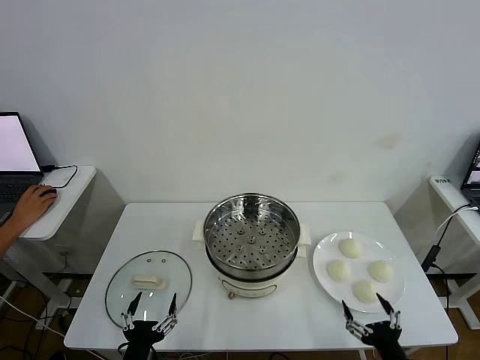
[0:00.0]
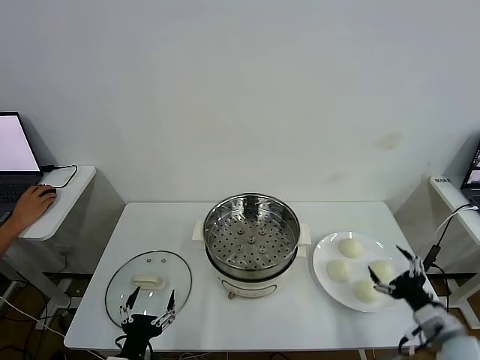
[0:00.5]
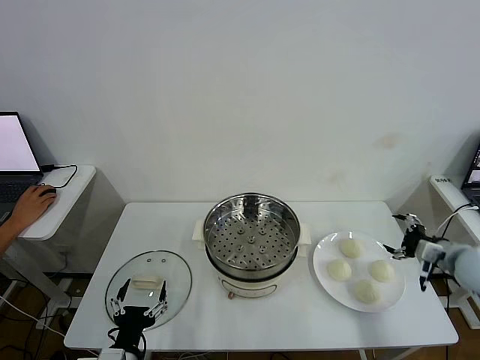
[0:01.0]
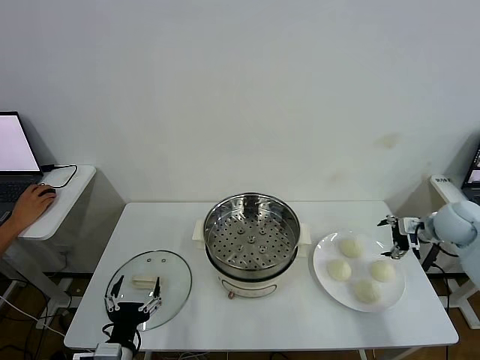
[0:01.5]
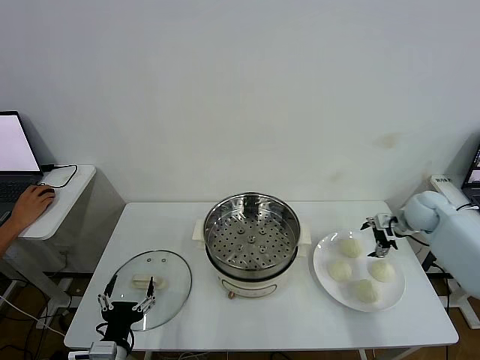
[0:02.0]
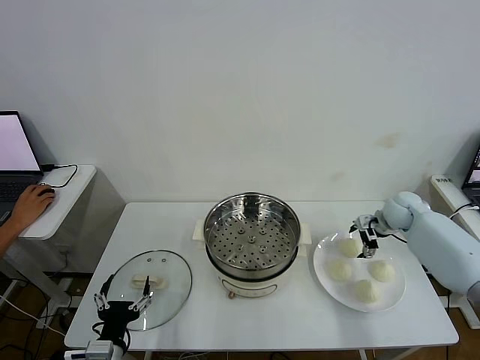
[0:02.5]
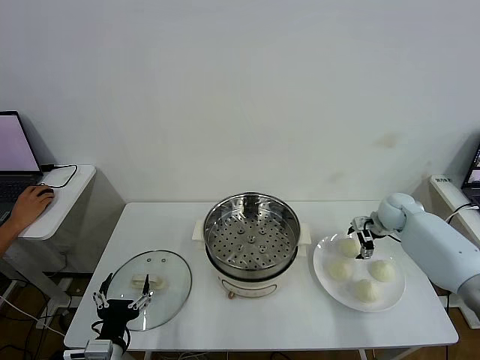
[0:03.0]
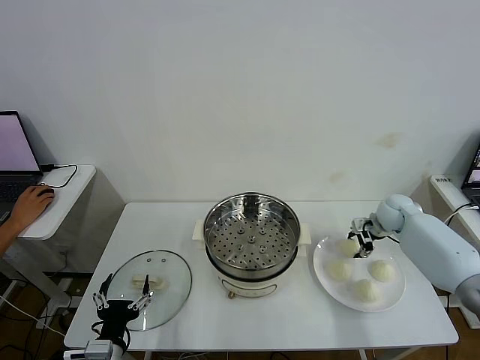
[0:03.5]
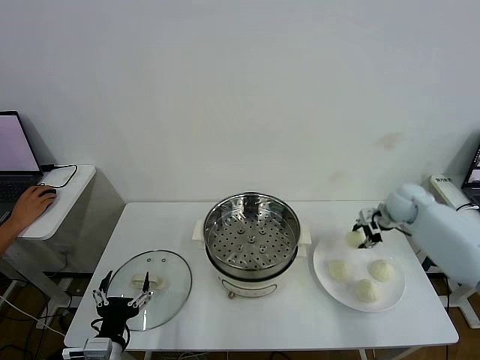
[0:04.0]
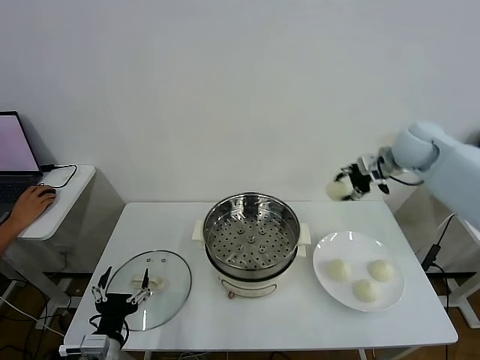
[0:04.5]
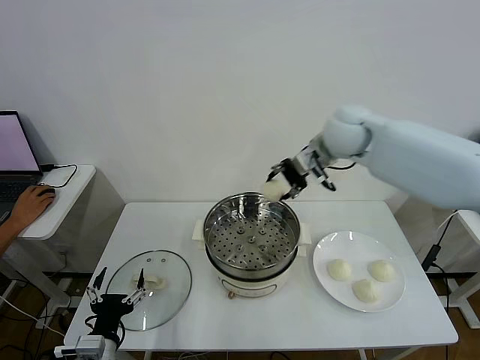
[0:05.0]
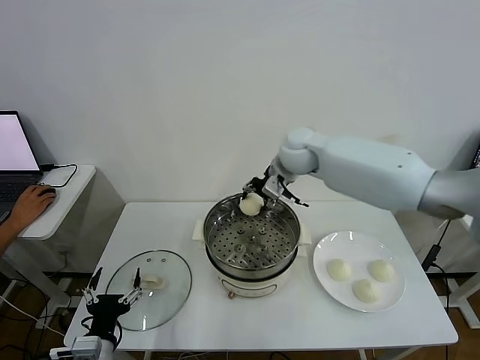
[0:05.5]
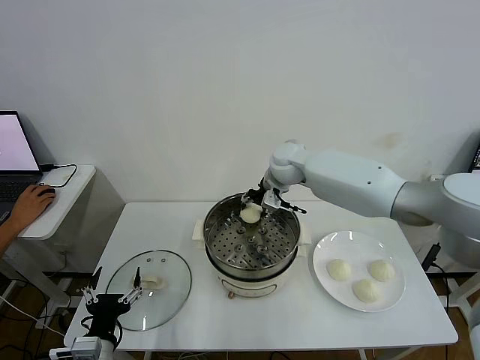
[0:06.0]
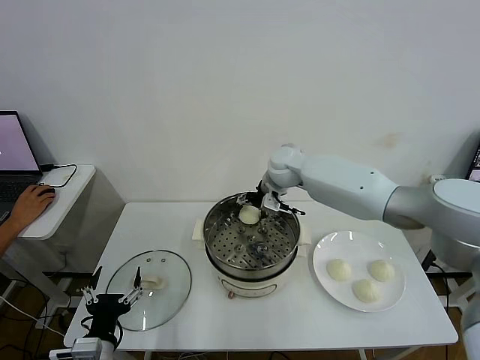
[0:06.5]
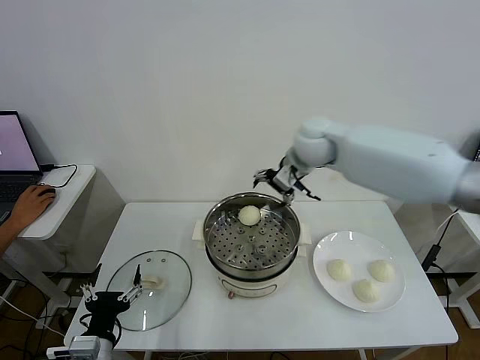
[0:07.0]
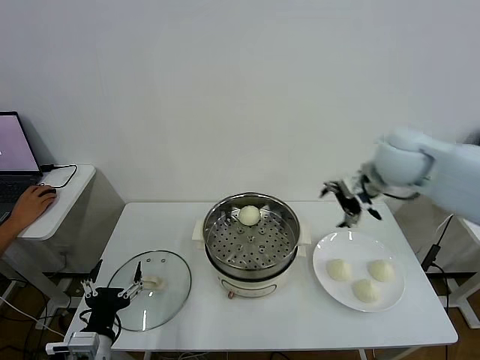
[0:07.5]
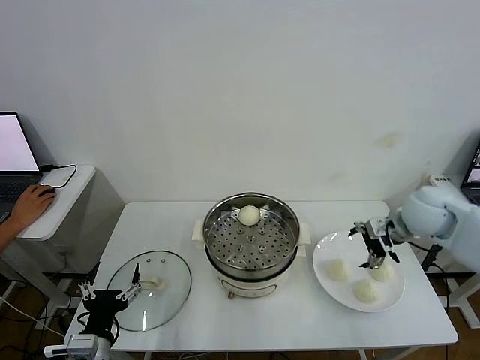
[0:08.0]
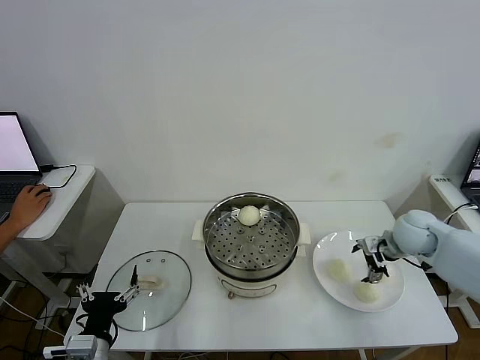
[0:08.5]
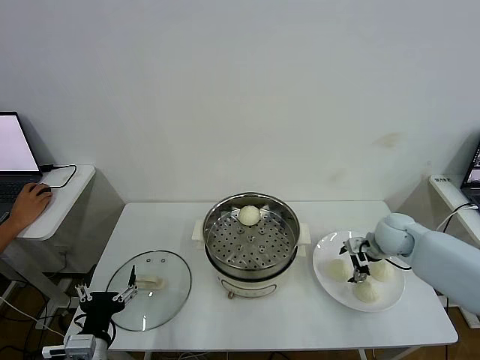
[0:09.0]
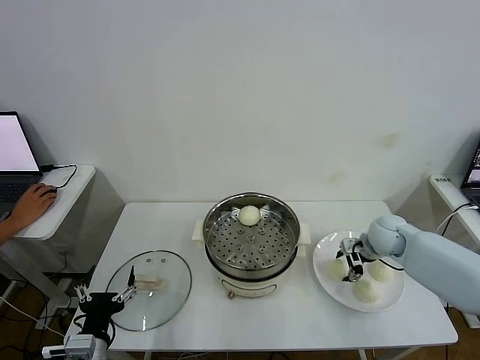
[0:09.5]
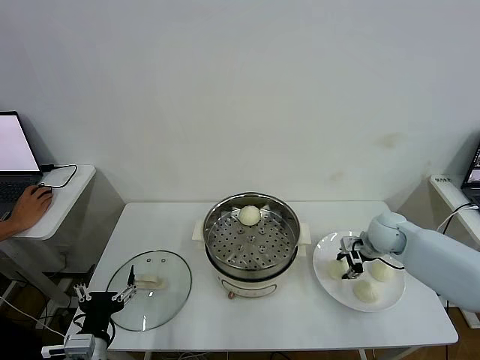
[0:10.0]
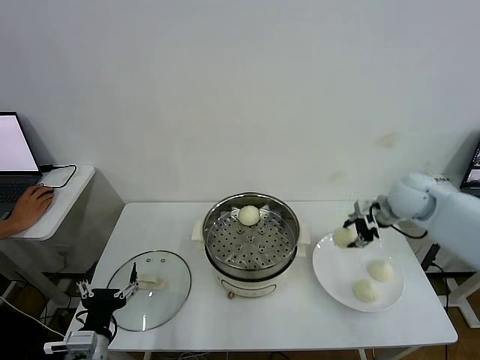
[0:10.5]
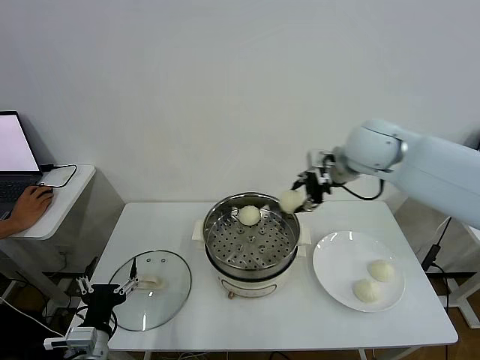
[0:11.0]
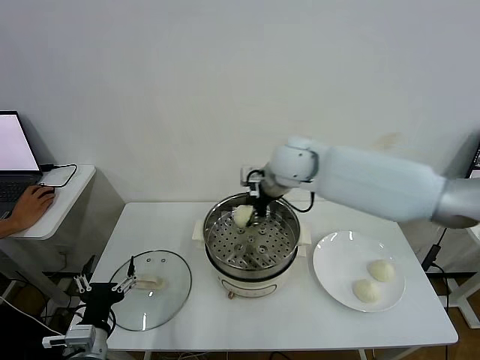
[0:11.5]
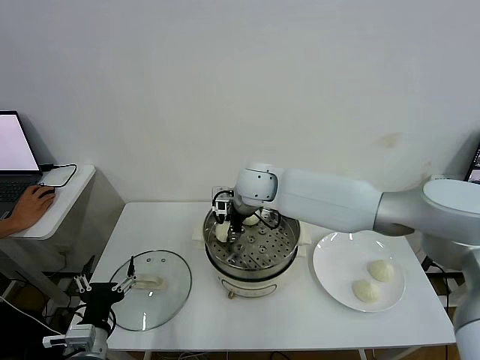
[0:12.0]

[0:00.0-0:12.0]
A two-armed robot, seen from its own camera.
Step, 0.0 to 3.5 s: Grasp the baozi in the plate with right gripper.
Step, 4.0 to 6.5 s: Place the baozi on the steamer with right gripper.
Step, 7.0 to 9.5 s: Grasp the baozi in the plate with right gripper.
2.0 to 4.0 s: The right gripper closes its fingers.
4.0 to 6.0 s: The right gripper heads to the left, covering approximately 30 cm.
6.0 to 8.0 s: The right gripper travels to the right and backward by some 30 cm, and opens up.
8.0 to 10.0 s: The right gripper shifts some 10 cm downward, and closes.
10.0 to 12.0 s: The right gripper goes about 35 cm to the left.

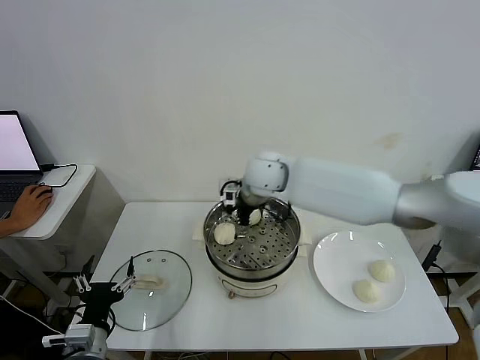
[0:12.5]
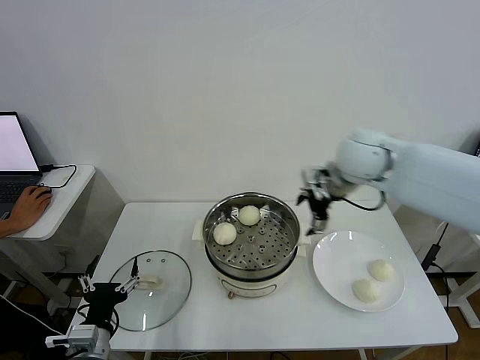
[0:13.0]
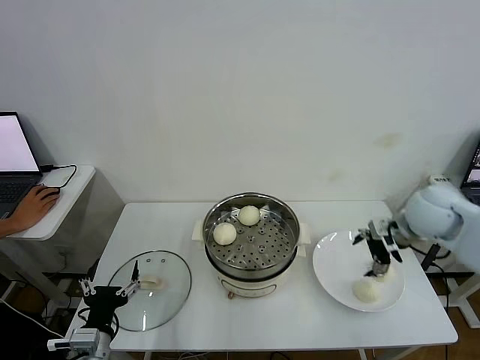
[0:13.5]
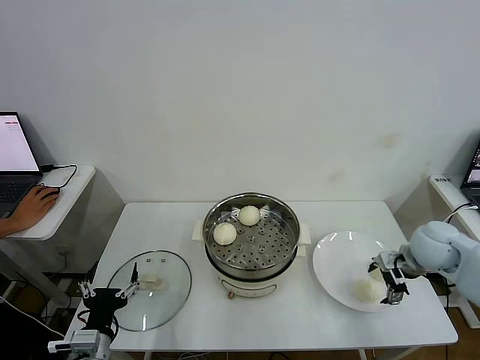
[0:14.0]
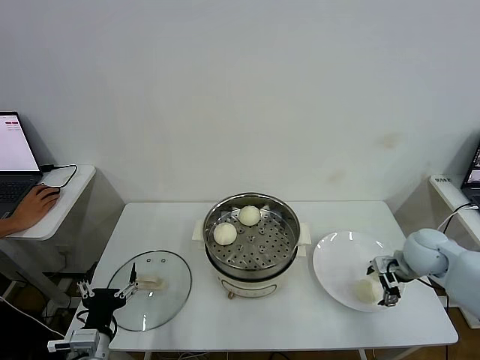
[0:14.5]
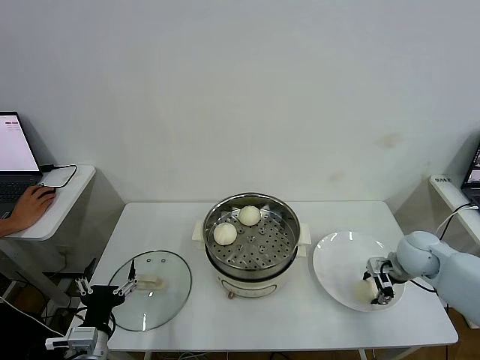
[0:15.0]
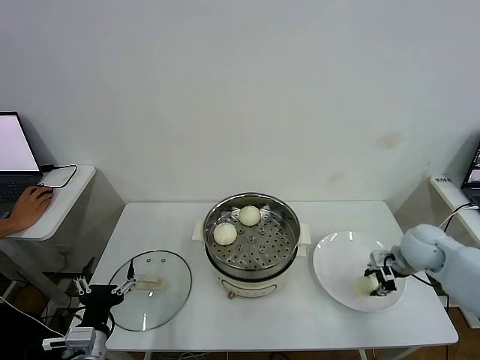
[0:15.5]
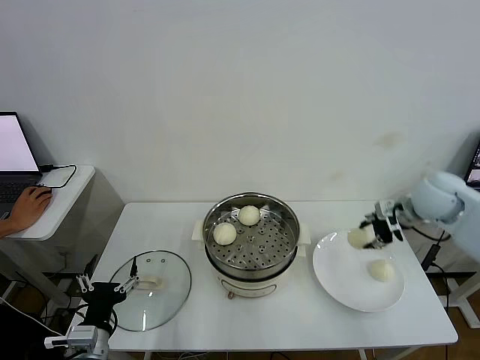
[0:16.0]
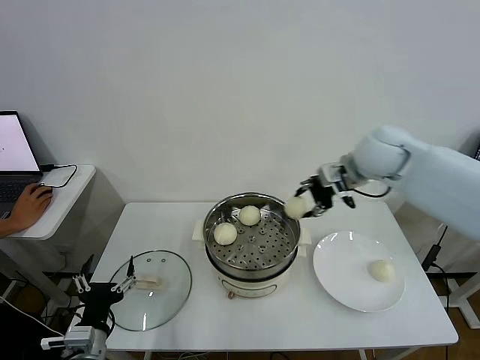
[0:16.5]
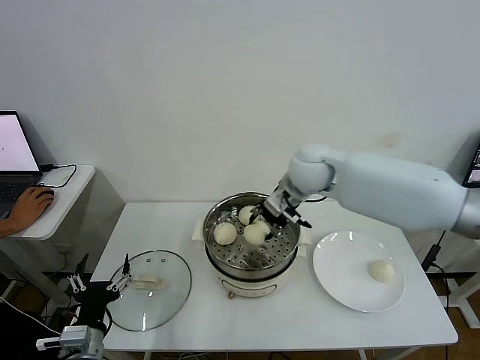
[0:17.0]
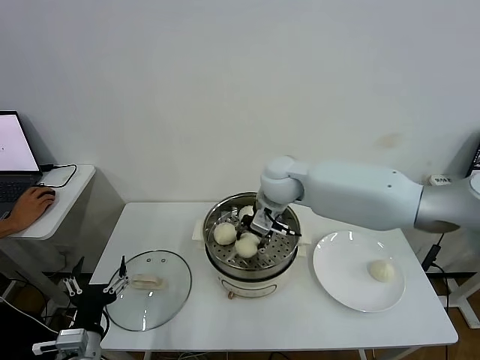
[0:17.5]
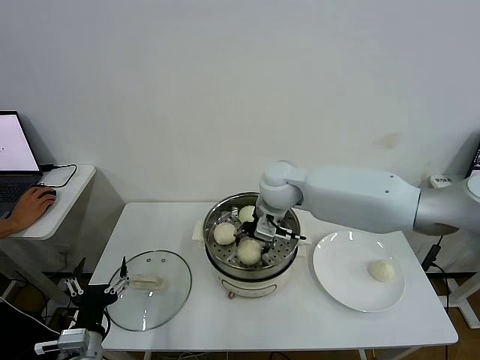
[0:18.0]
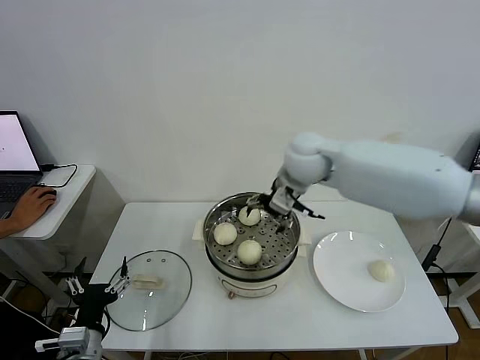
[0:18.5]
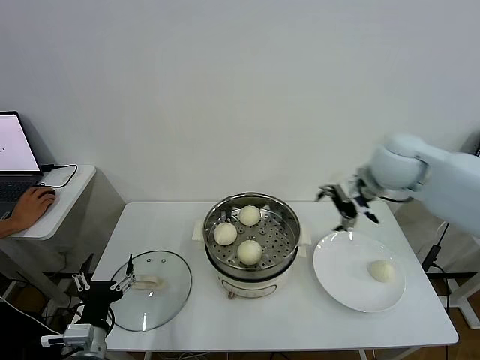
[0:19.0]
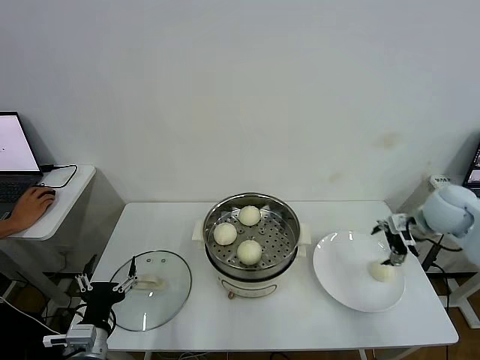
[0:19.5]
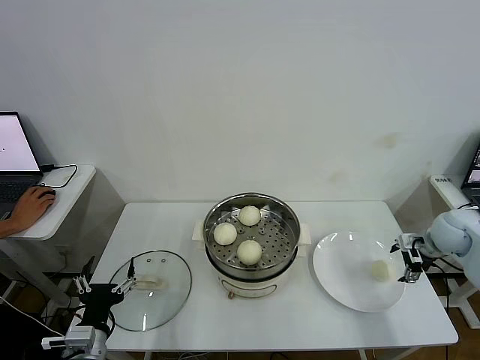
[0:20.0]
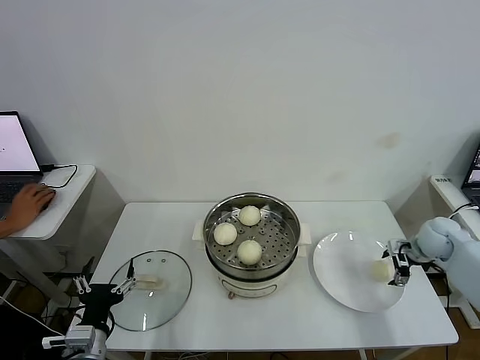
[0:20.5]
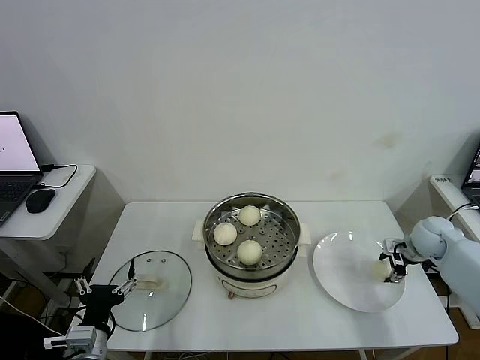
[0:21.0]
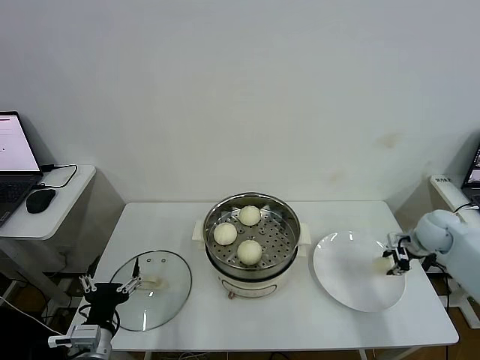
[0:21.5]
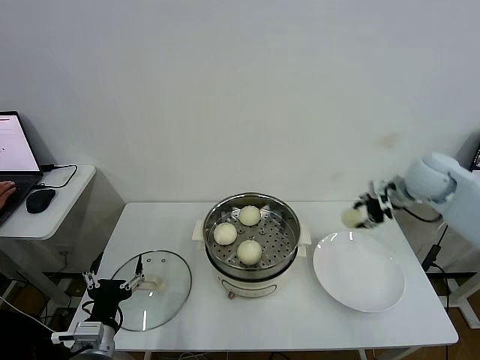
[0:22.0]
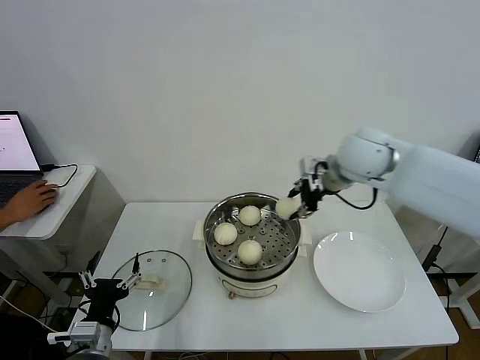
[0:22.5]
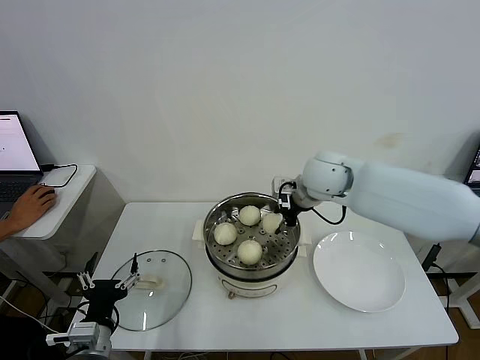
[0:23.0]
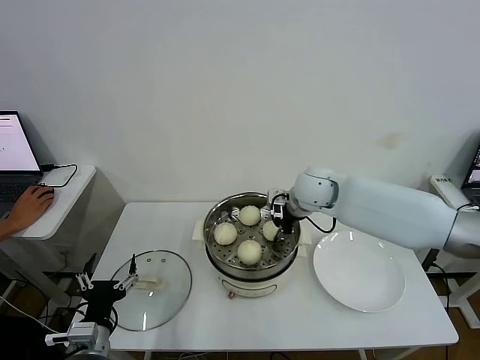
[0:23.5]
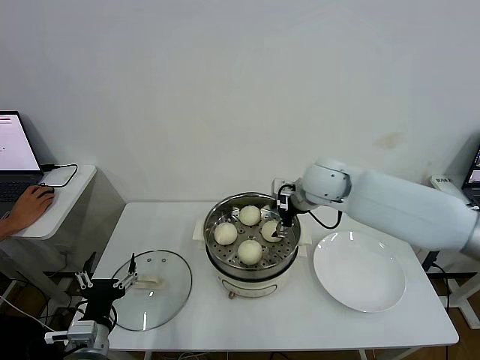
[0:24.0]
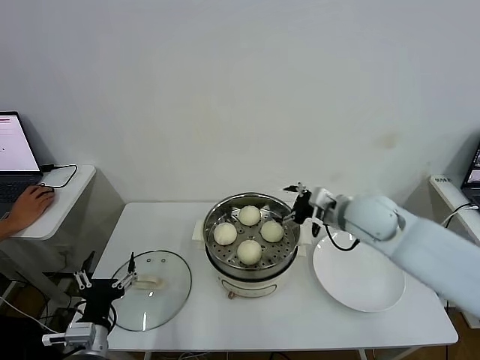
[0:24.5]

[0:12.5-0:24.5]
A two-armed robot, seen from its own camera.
Step, 13.0 to 15.0 s: Grasp the baozi in the plate with right gripper.
Step, 15.5 to 18.0 s: Place the baozi on the steamer with right gripper.
Step, 18.5 to 21.0 s: Grasp the baozi in the plate with right gripper.
Step, 21.5 to 23.5 s: Place the baozi on the steamer with right gripper.
12.5 to 14.5 s: The right gripper moves to the right and downward, approximately 40 cm.
14.5 to 16.5 s: The right gripper is displaced upward, to the left and forward by roughly 30 cm, and closes its fingers.
16.5 to 18.5 s: The right gripper is displaced to the left by approximately 10 cm, and opens up.
18.5 to 20.5 s: The right gripper travels to the right and downward by approximately 40 cm.
20.5 to 22.5 s: The right gripper heads to the left and upward, covering some 35 cm, and closes.
22.5 to 24.5 s: The right gripper is displaced downward and backward by some 10 cm, and opens.

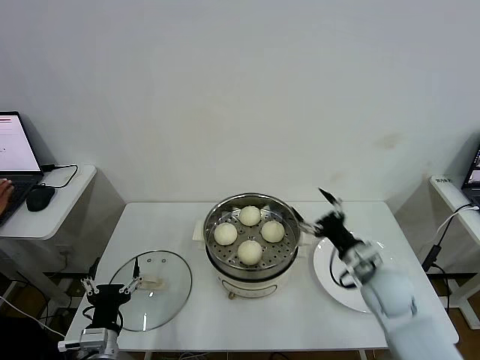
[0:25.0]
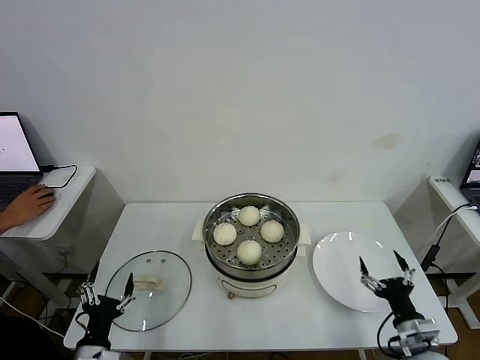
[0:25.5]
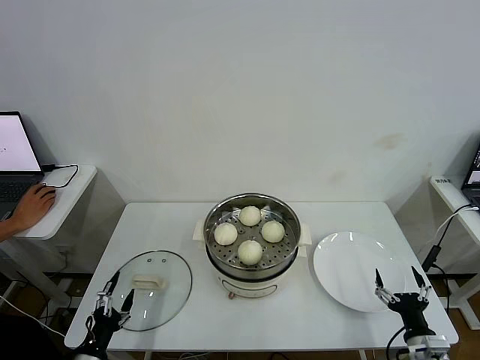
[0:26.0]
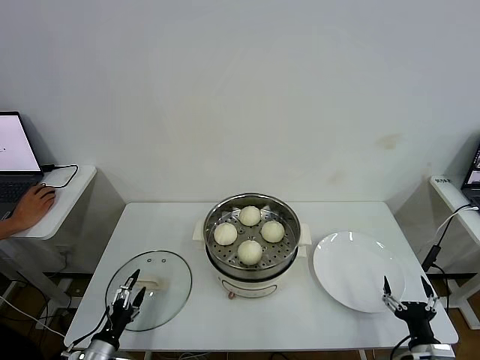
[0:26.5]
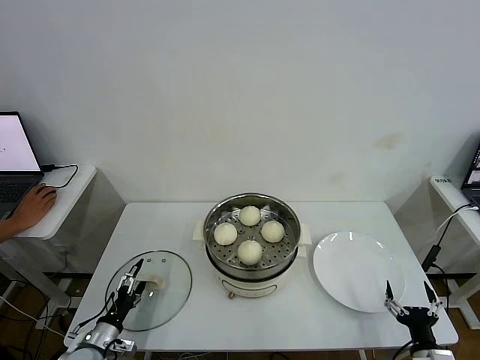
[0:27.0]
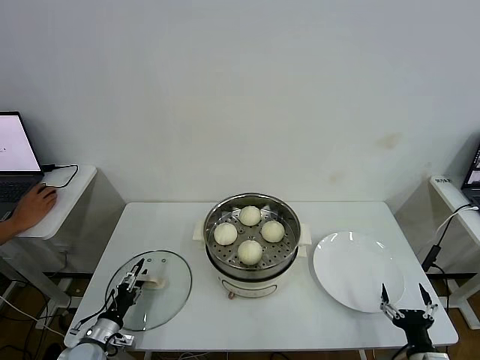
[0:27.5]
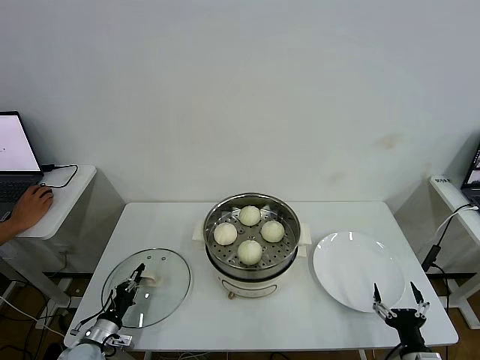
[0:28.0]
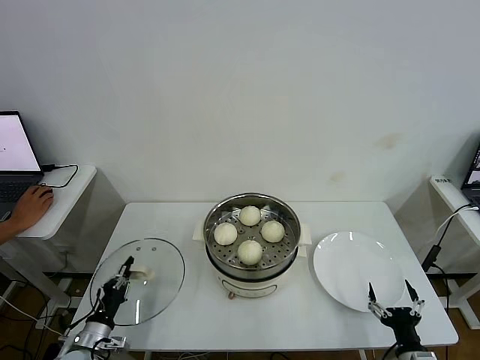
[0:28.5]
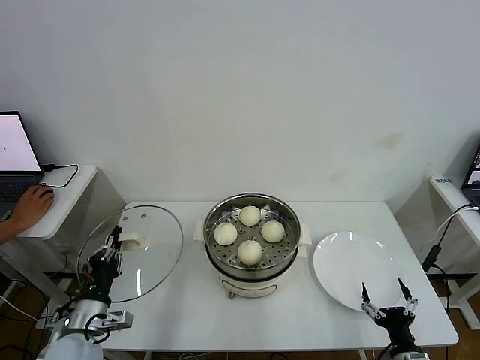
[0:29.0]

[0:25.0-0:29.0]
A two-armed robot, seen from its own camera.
Step, 25.0 to 28.0 s: Grasp the pot lid with left gripper.
25.0 to 27.0 s: The right gripper is displaced backward, downward and to the right by approximately 25 cm; the left gripper moves downward and to the left, about 15 cm.
27.0 to 29.0 s: The left gripper moves upward, roughly 15 cm, and closes its fingers.
